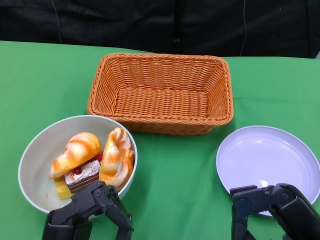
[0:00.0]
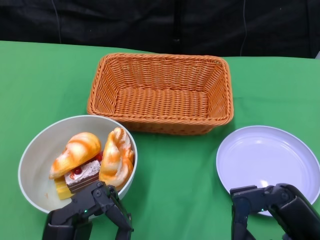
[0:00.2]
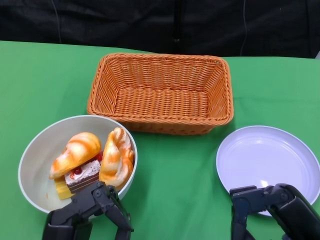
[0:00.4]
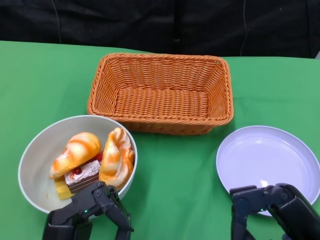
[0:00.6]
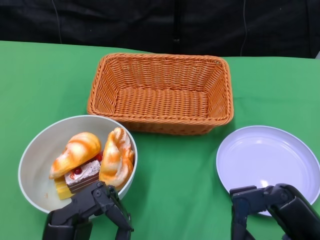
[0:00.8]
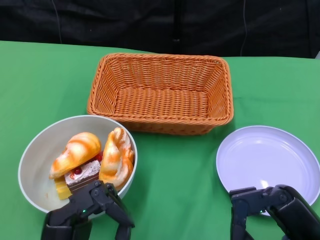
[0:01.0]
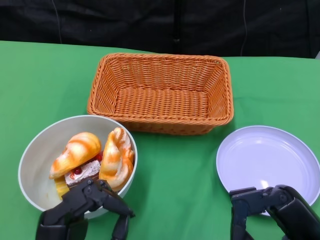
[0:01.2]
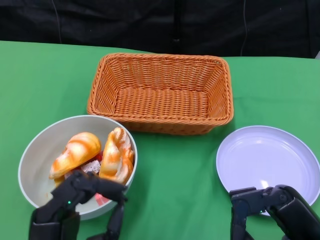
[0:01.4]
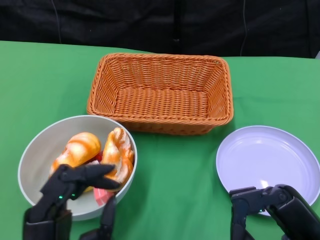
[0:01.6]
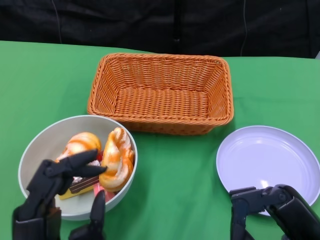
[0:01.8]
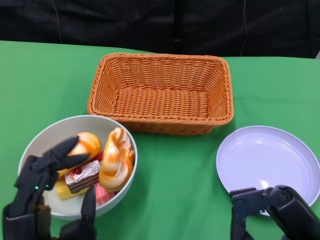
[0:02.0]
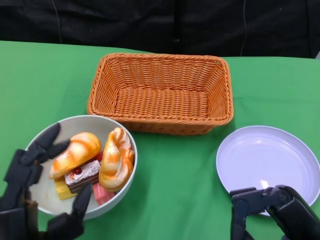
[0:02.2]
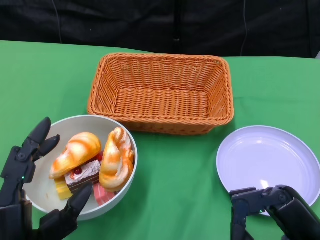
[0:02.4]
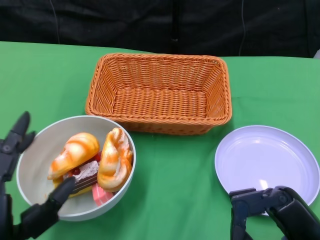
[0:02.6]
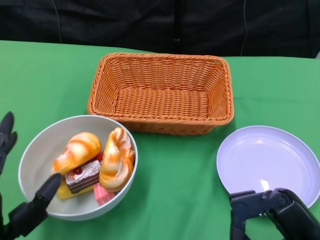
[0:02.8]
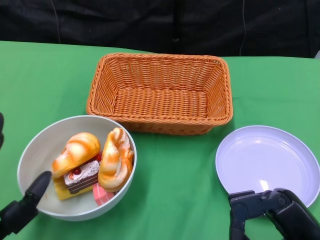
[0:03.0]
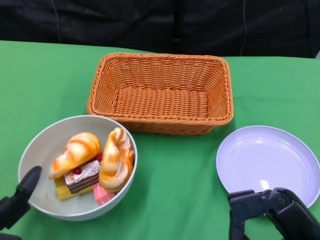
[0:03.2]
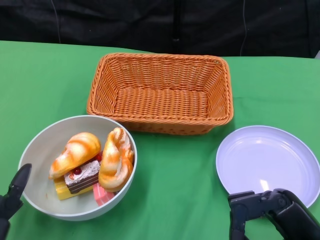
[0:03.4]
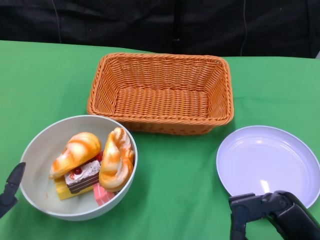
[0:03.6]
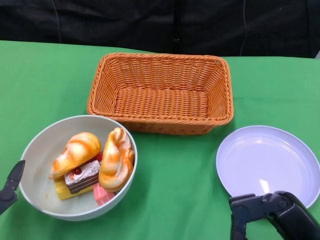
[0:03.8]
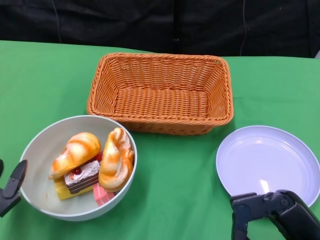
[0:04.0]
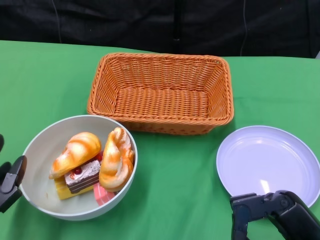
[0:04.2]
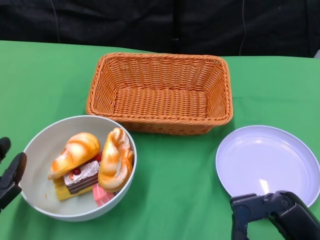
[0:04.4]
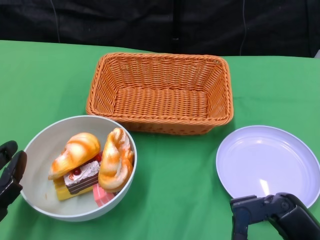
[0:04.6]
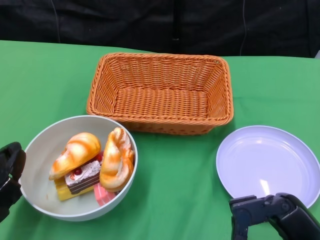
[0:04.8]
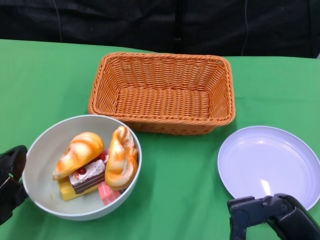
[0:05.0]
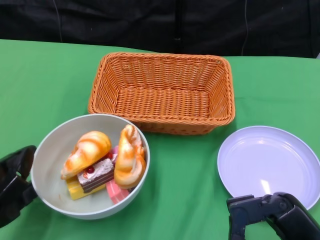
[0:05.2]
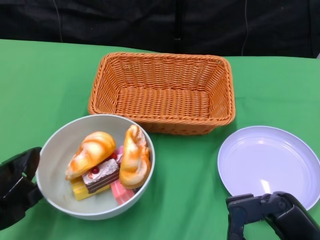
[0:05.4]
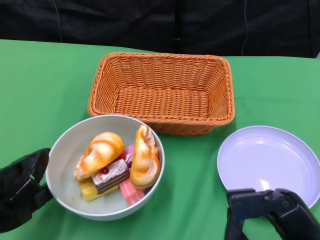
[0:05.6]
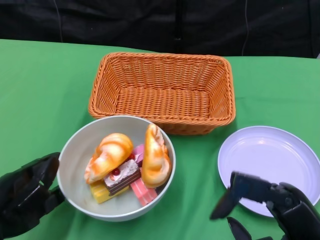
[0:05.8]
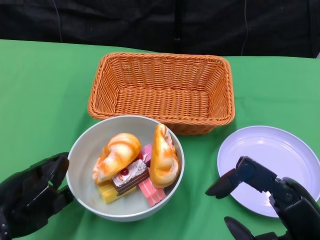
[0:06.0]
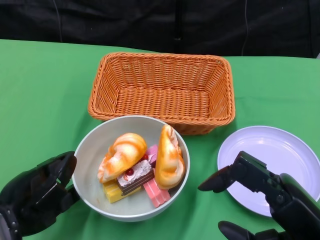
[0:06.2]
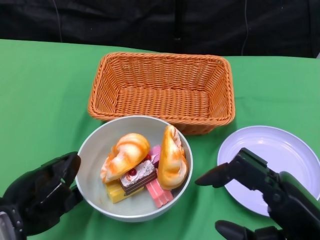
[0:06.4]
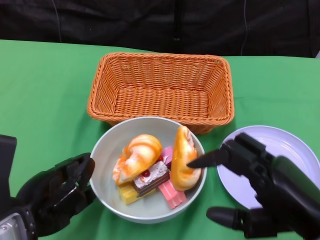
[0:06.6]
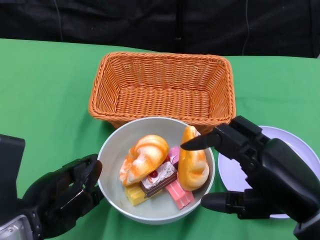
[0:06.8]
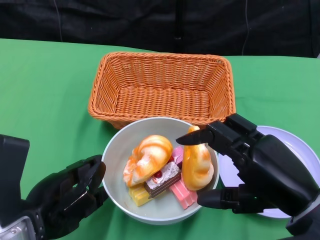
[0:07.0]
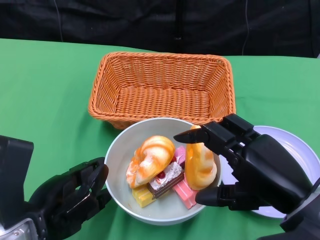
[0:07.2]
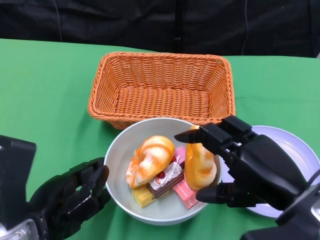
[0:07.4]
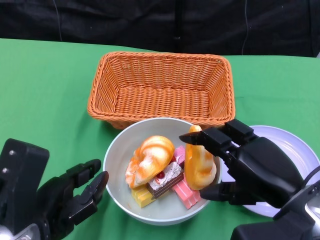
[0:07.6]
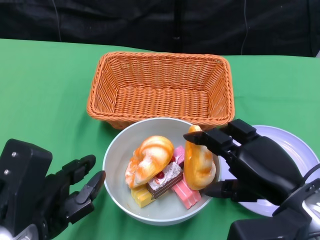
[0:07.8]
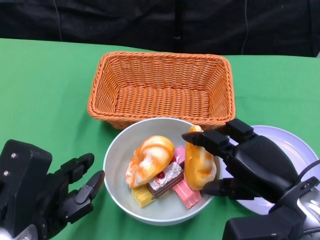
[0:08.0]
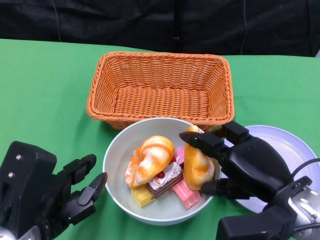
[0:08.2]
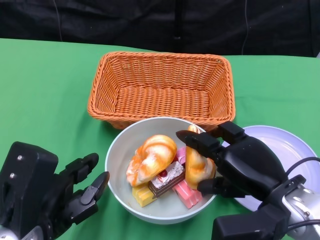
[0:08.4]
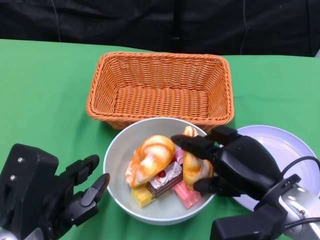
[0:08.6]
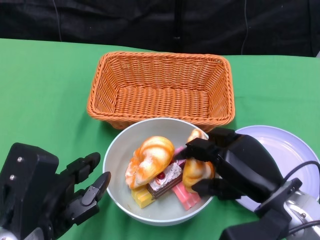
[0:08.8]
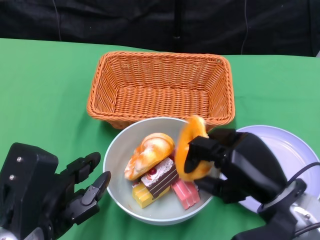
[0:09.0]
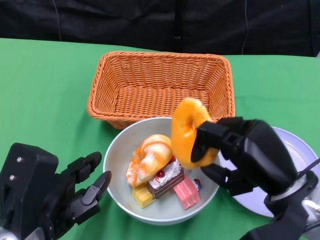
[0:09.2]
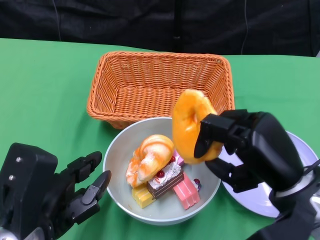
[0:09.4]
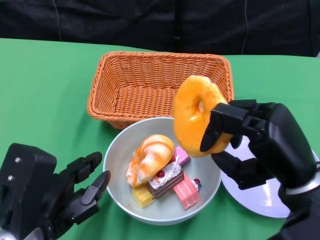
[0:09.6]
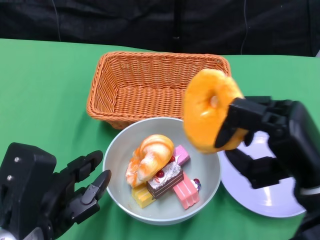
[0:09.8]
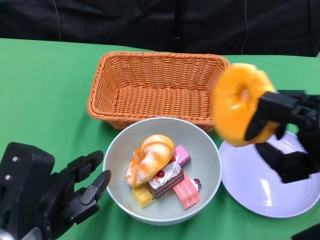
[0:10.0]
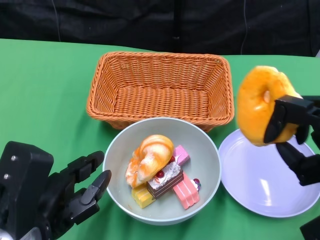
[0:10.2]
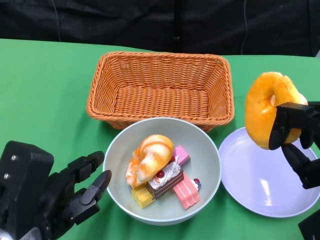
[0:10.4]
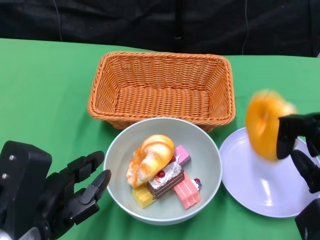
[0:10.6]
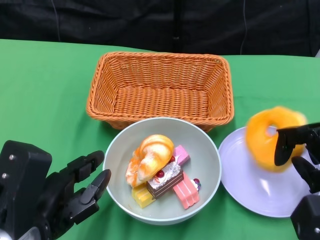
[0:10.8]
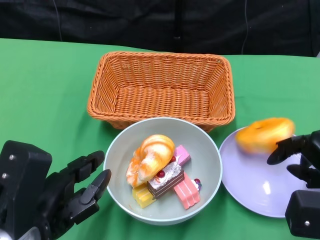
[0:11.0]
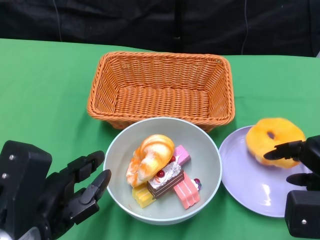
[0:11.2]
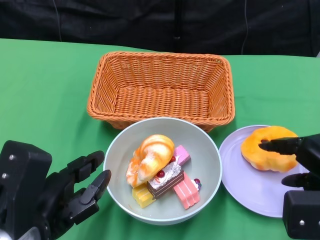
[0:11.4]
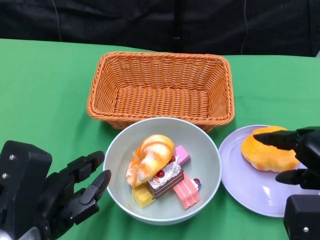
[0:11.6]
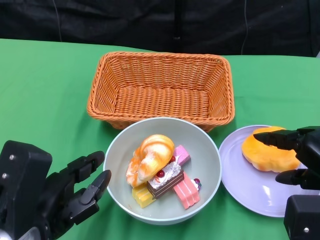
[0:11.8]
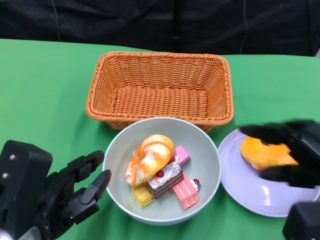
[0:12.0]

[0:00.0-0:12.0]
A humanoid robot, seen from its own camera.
Step, 0:00.0 to 0:07.4: Push the bowl to the center of the table using the left gripper.
0:01.6 to 0:03.0: The left hand goes some 10 cm to the left.
0:03.0 to 0:04.4: The left hand moves about 5 cm.
0:06.0 to 0:07.6: The right hand moves forward, roughly 5 cm; the left hand changes place by approximately 5 cm.
0:07.6 to 0:09.0: The right hand changes place by approximately 5 cm.
0:09.0 to 0:10.4: The right hand travels to the right and upward by approximately 10 cm.

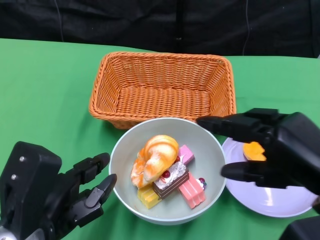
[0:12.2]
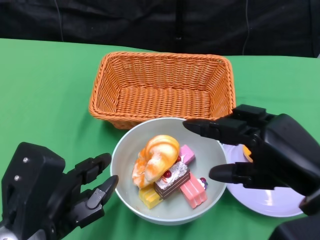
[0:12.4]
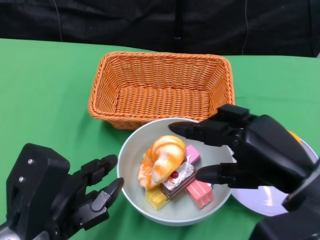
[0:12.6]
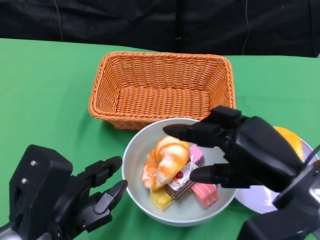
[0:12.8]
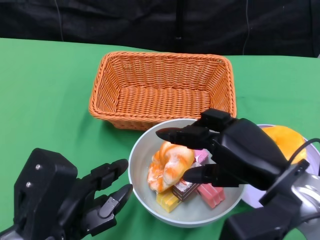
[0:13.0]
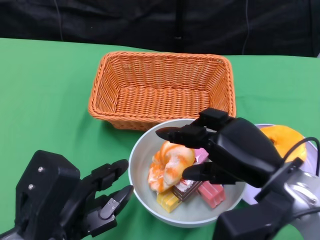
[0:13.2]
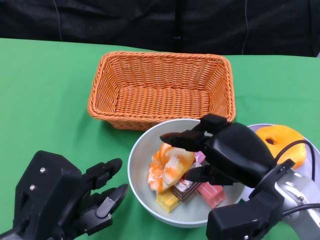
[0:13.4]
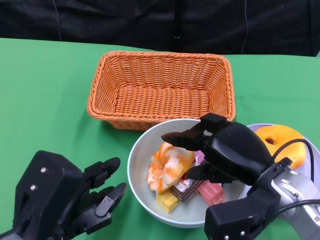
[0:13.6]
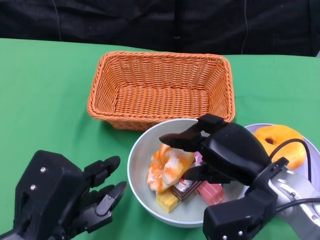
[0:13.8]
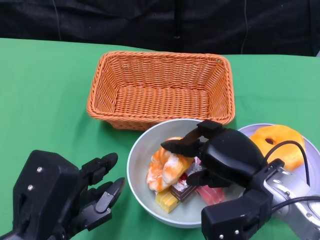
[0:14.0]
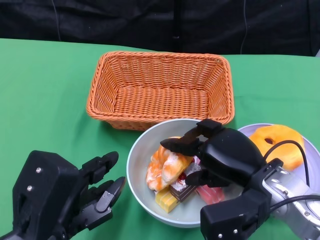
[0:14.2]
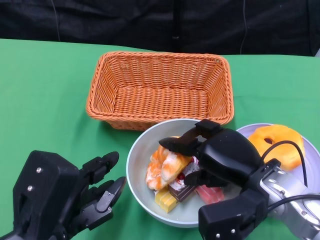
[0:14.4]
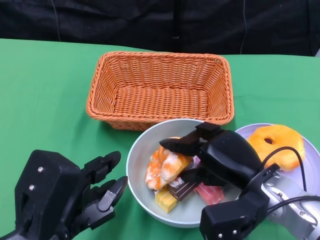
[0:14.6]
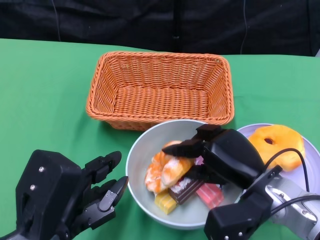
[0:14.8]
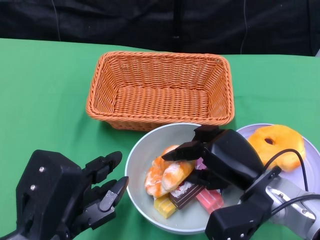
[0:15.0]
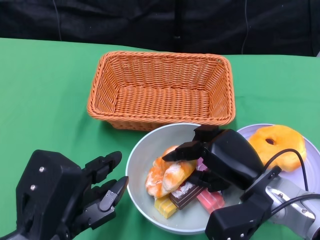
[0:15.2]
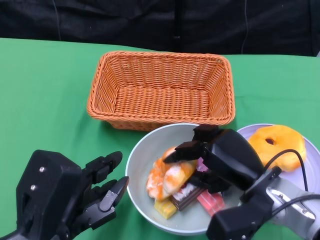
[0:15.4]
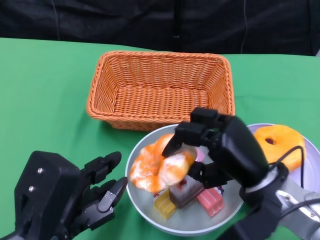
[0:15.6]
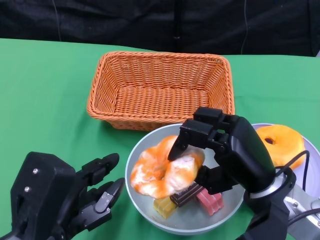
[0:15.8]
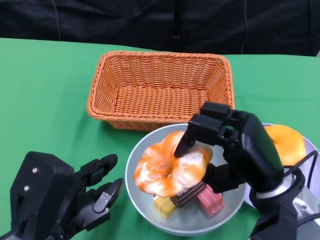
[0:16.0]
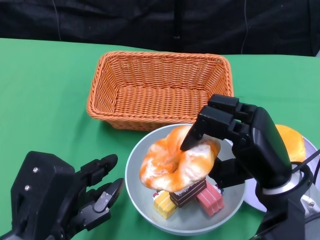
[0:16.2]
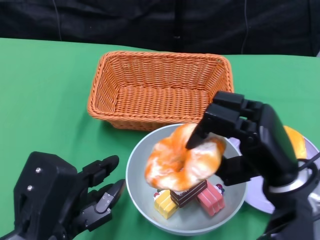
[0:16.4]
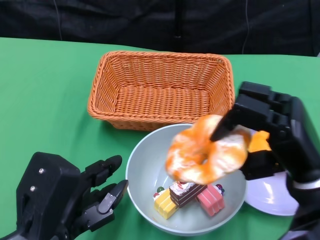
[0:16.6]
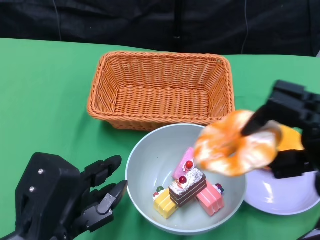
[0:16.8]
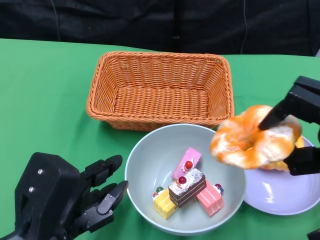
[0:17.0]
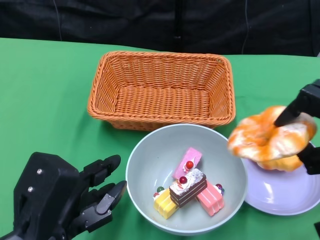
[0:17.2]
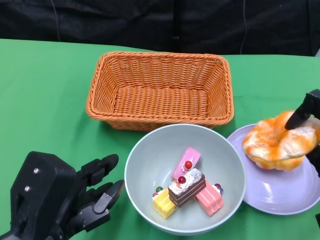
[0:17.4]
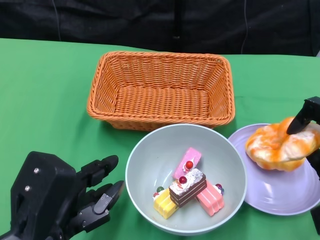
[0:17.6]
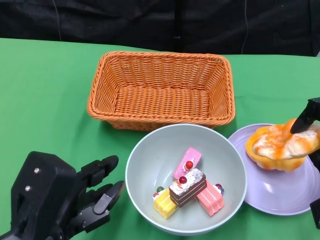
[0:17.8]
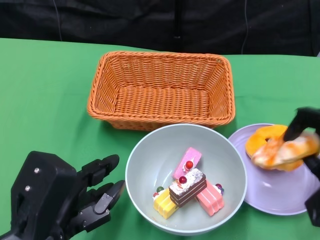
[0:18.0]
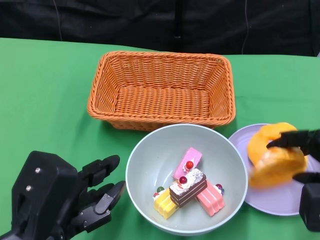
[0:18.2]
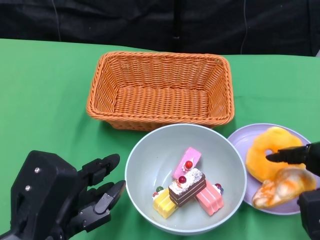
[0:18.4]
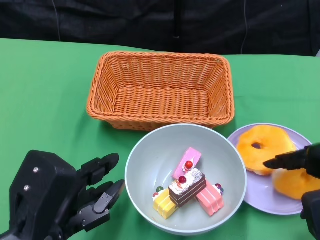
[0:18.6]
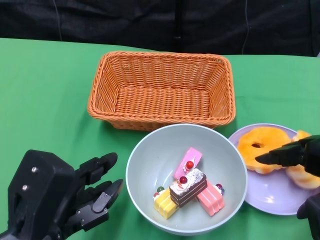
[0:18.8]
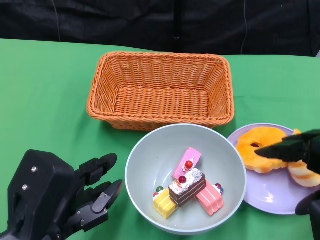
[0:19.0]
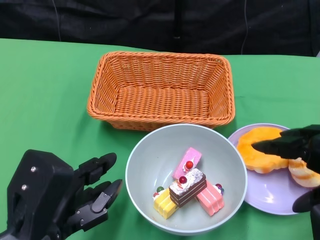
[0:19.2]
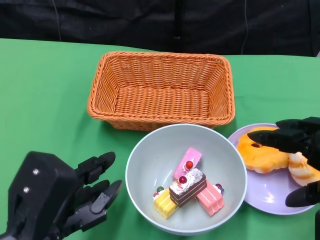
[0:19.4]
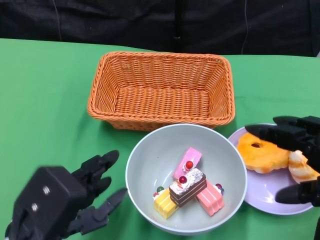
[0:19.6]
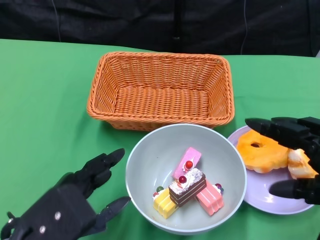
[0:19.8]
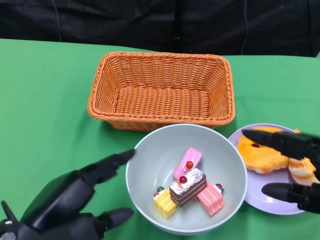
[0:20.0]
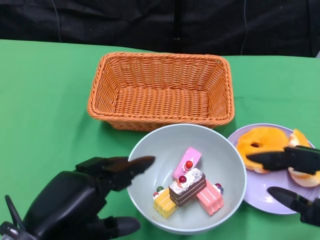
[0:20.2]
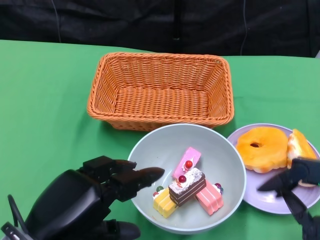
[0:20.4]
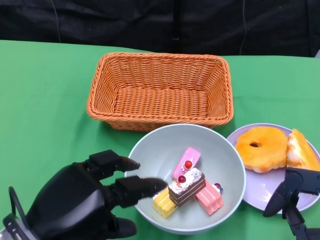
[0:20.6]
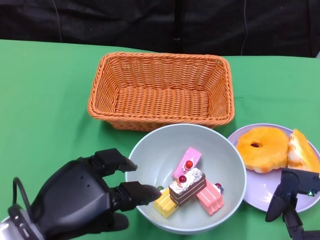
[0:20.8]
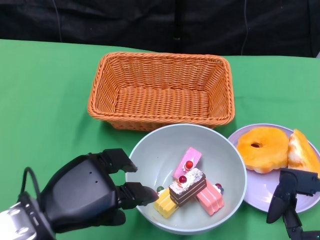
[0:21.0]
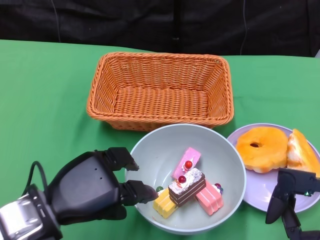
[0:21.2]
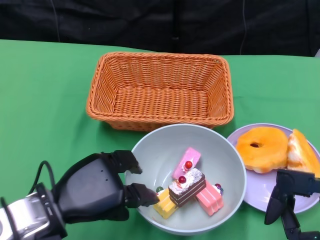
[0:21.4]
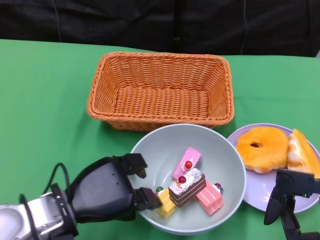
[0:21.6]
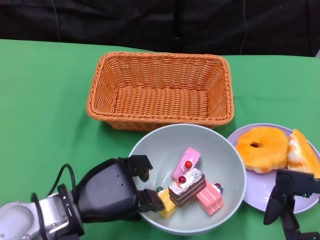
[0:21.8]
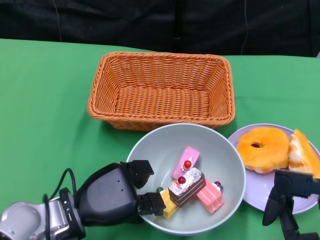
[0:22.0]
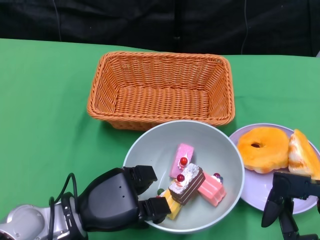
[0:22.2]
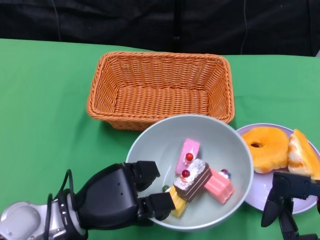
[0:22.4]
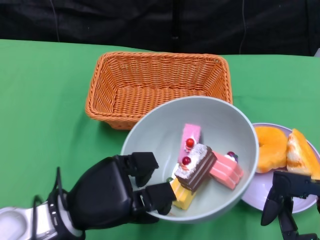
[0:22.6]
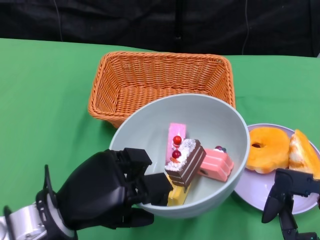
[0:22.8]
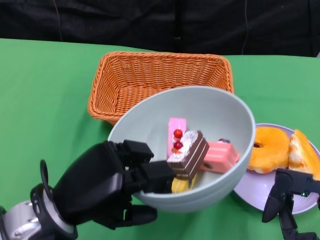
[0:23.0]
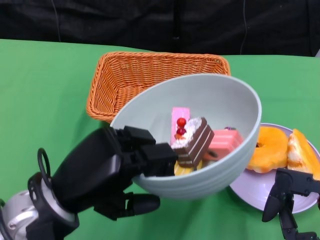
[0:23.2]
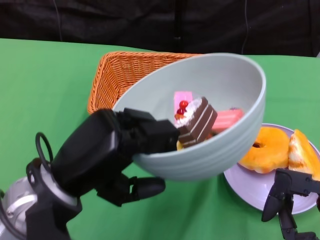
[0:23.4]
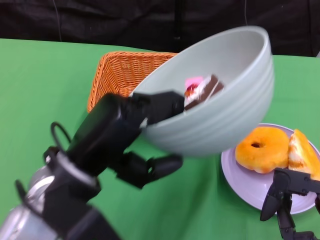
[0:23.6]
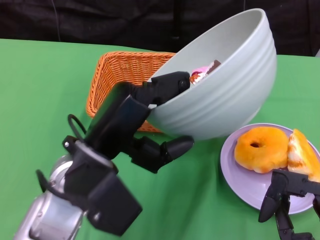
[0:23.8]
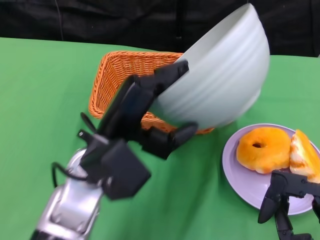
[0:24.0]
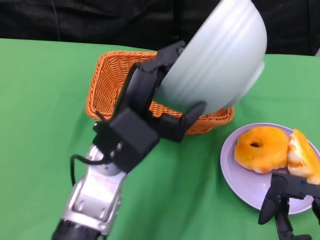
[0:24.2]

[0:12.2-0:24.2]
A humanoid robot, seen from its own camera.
Step, 0:12.2 to 0:18.8: Pick up the bread with the right gripper and place it on the plate.
Step, 0:19.0 to 0:22.2: Grasp the bowl with the left gripper.
0:12.2 to 0:13.8: The right hand moves to the left, downward and forward, roughly 10 cm.
0:13.8 to 0:15.2: There are only small adjustments of the hands.
0:15.2 to 0:16.6: The right hand travels upward by about 5 cm.
0:16.6 to 0:18.2: The right hand is displaced to the right by approximately 10 cm.
0:18.2 to 0:19.8: The right hand shifts roughly 10 cm backward and upward.
0:19.8 to 0:21.2: The left hand ends up roughly 5 cm from where it was; the right hand goes some 5 cm downward.
0:22.6 to 0:24.2: The left hand heads upward and to the right, covering approximately 10 cm.
